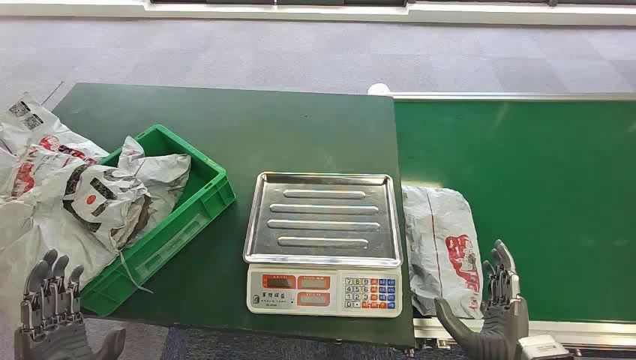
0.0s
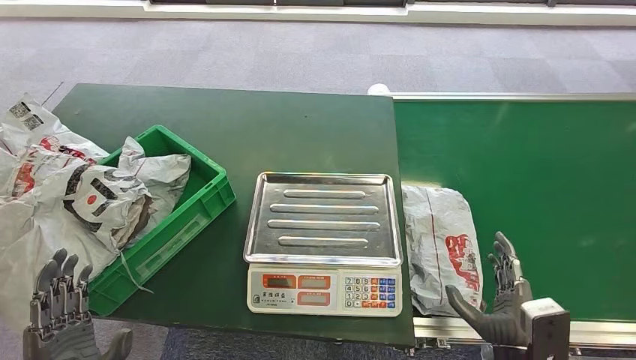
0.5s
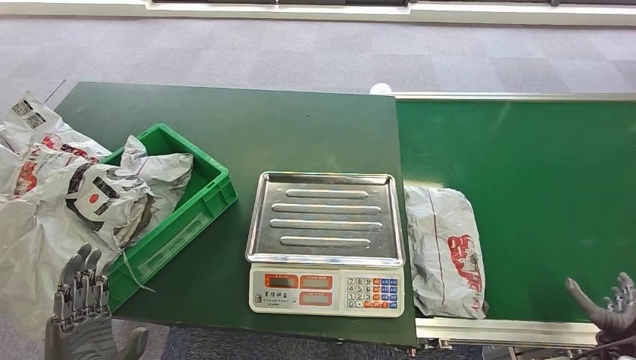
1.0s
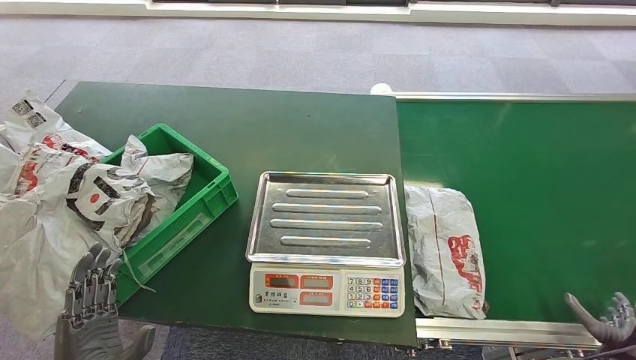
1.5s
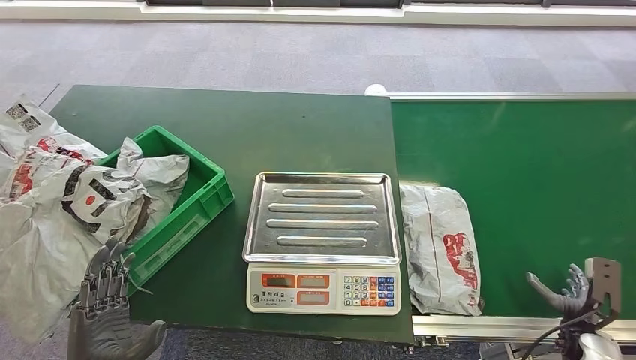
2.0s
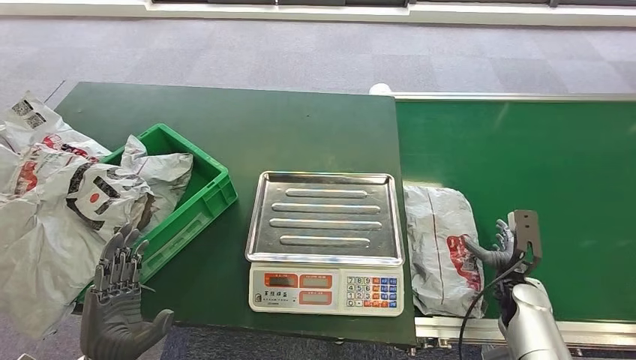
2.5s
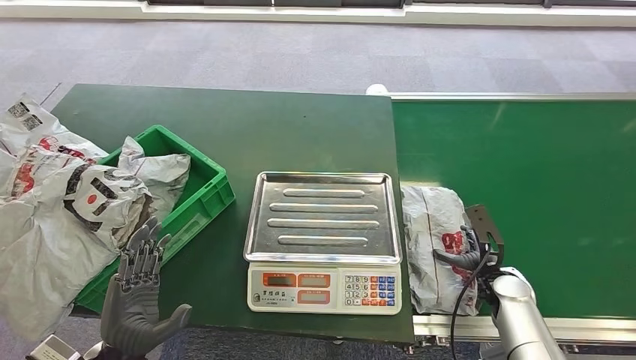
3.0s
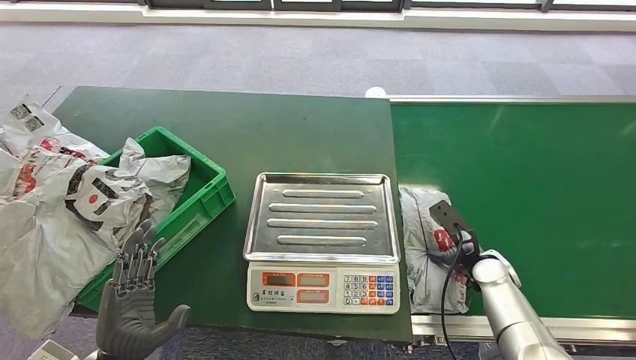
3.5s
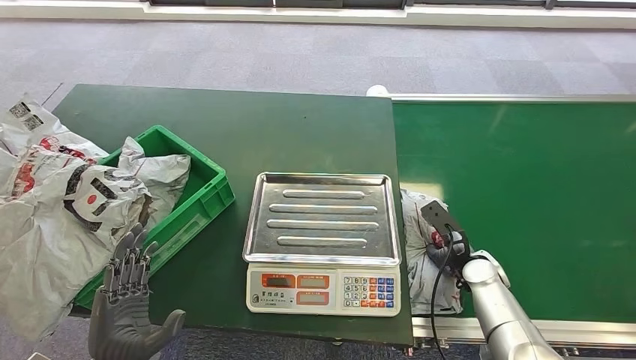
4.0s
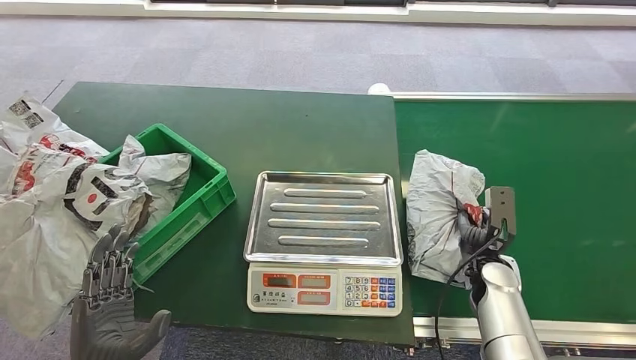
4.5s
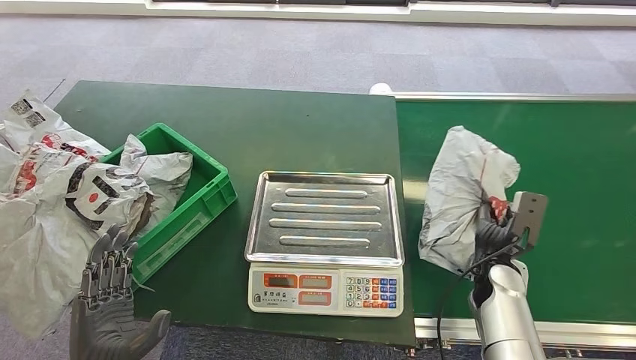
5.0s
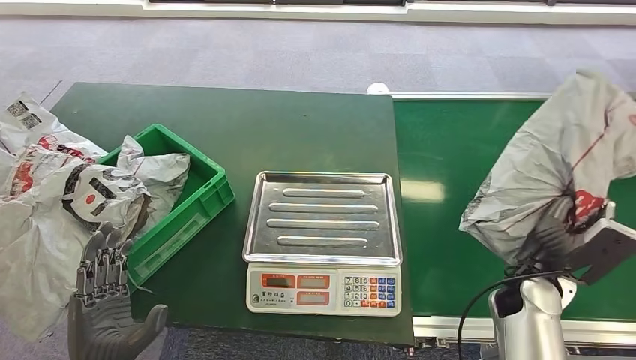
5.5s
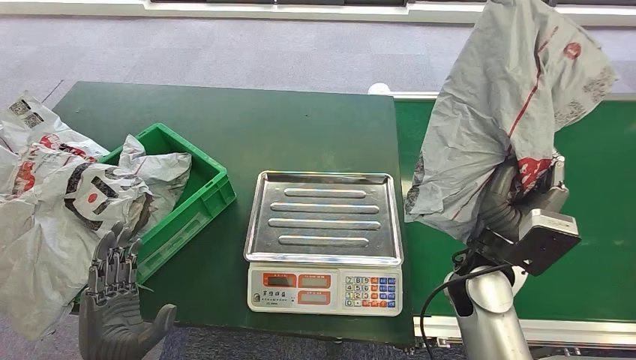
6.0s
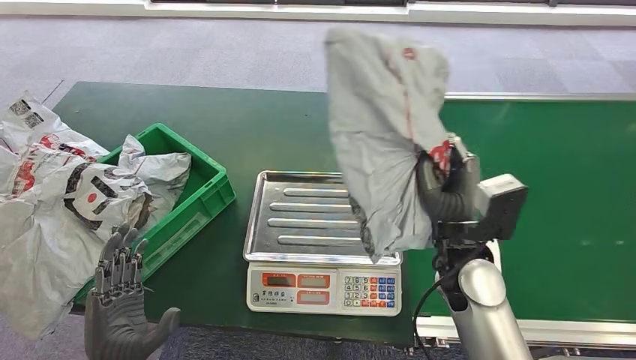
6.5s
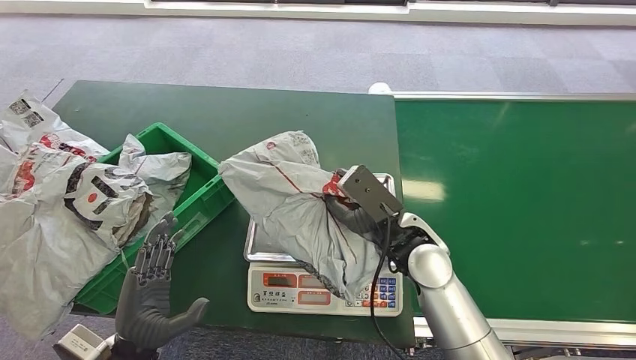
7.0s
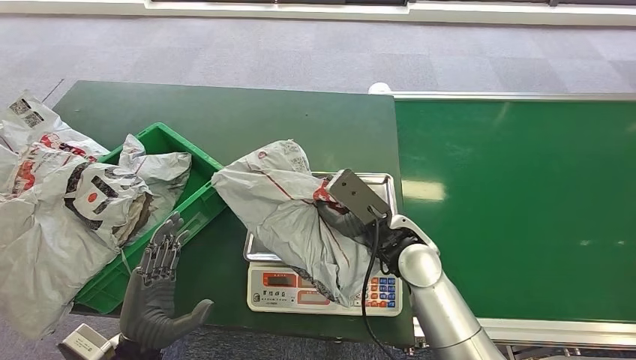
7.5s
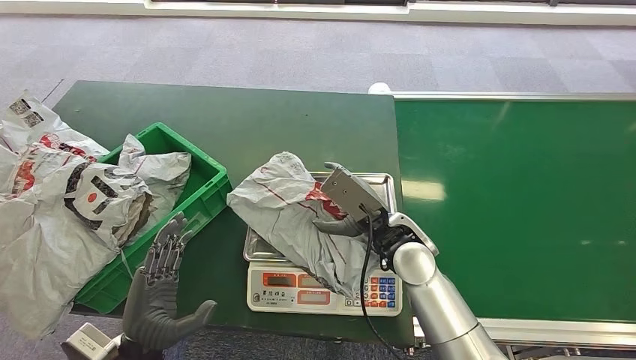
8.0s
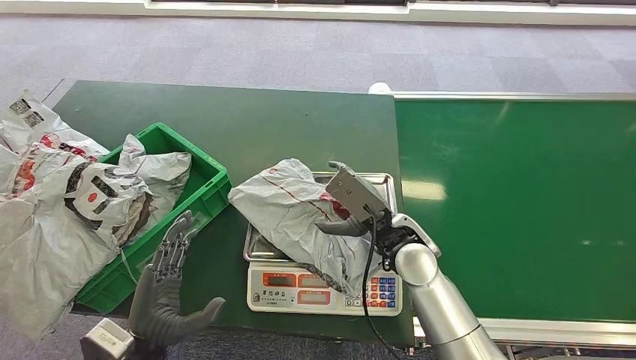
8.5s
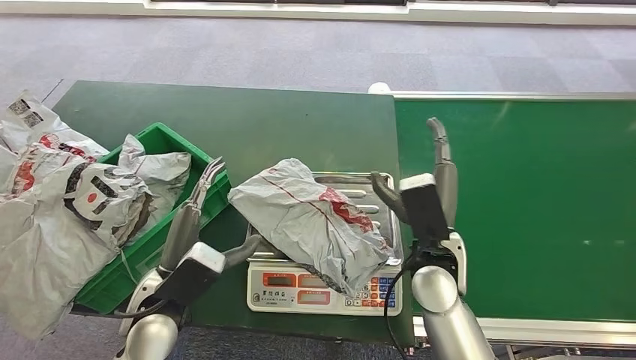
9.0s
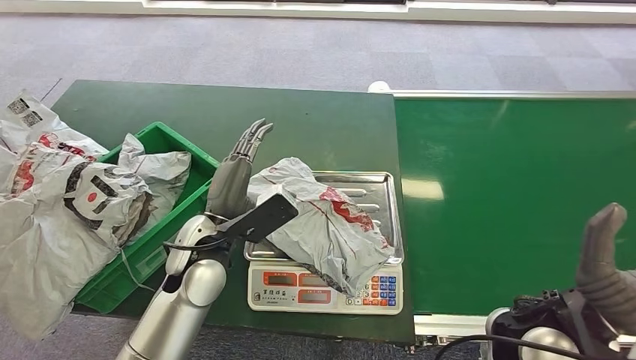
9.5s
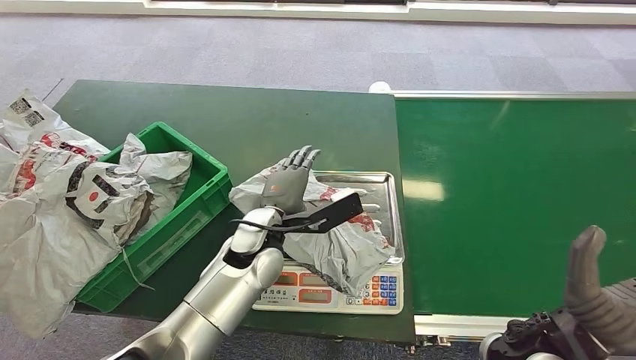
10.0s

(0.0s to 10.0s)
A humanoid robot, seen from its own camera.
Step, 0.0s - 5.5s: Pick up the package from the conveyor belt.
Step, 6.0s - 8.0s: Place the package onto the inbound machine.
2.0s - 4.0s: The right hand is displaced to the left and forward by approximately 20 cm.

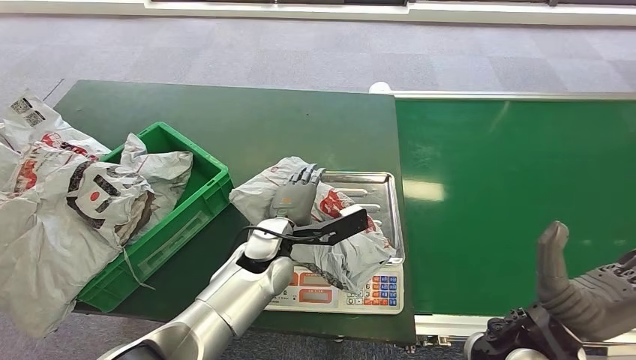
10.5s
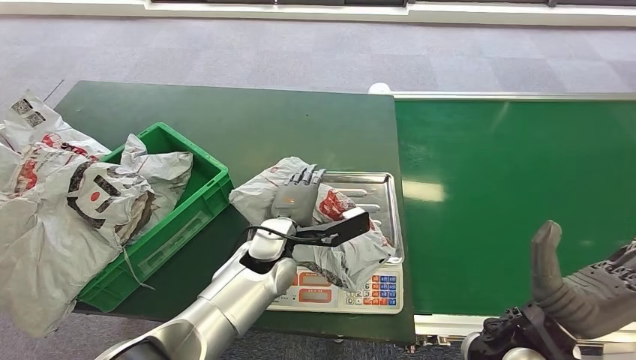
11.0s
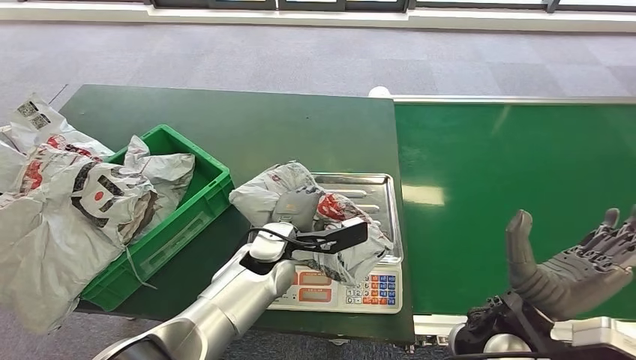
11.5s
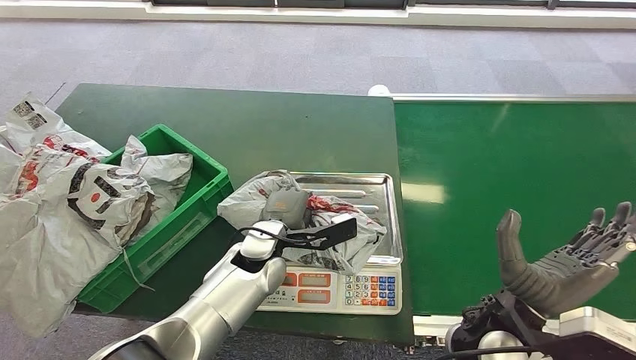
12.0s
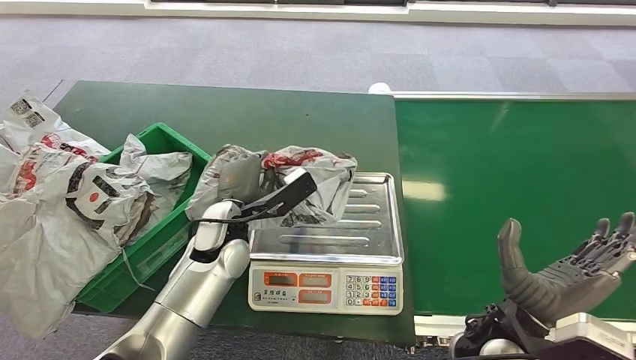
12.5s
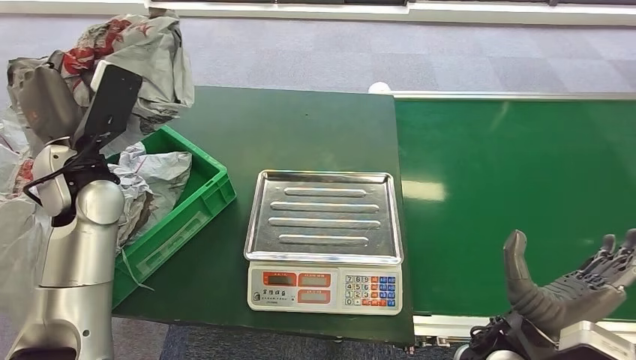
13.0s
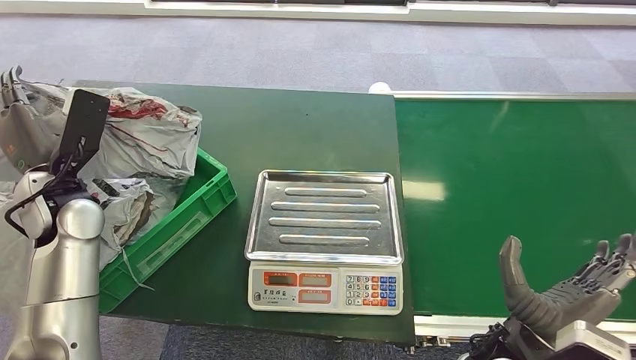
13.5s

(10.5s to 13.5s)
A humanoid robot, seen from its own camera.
Step, 10.5s - 13.0s: Pick up the package from the inbound machine.
